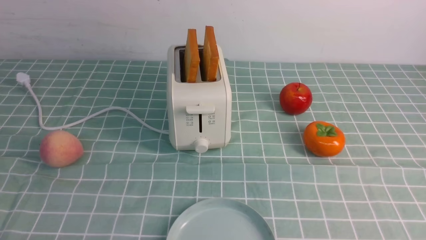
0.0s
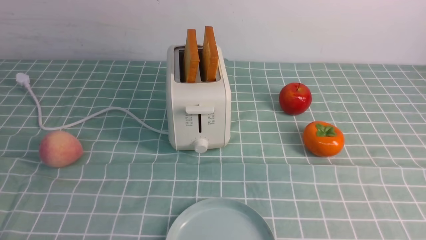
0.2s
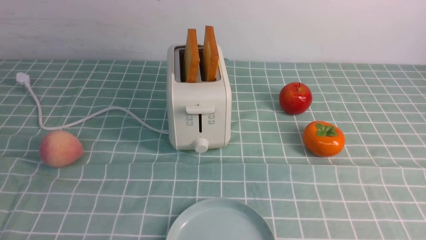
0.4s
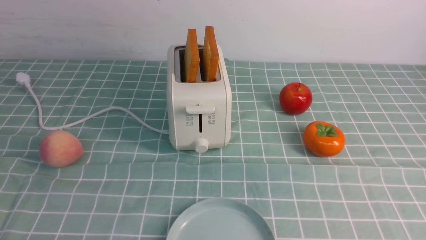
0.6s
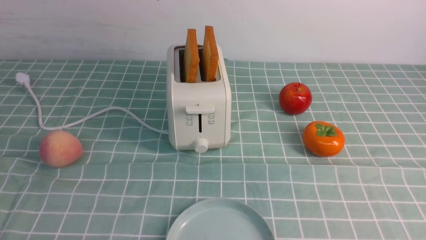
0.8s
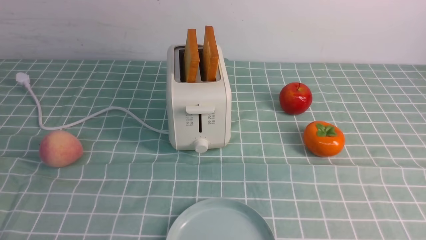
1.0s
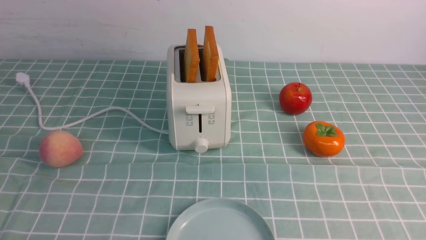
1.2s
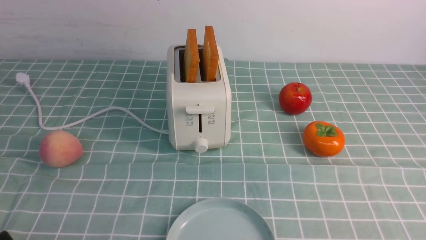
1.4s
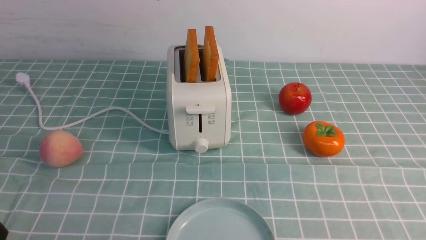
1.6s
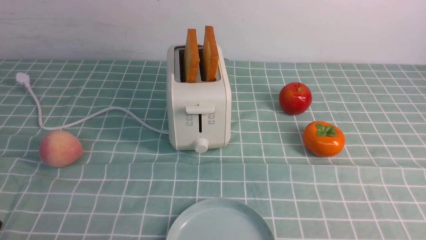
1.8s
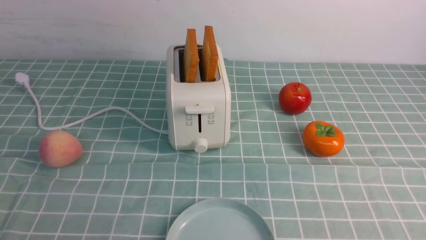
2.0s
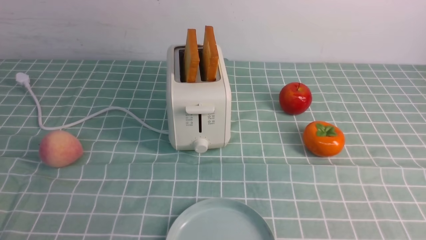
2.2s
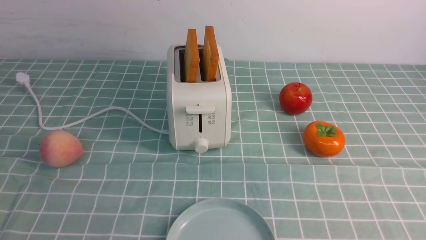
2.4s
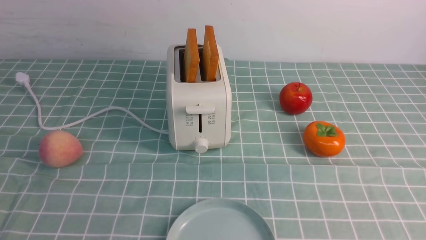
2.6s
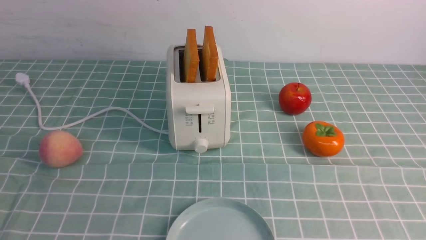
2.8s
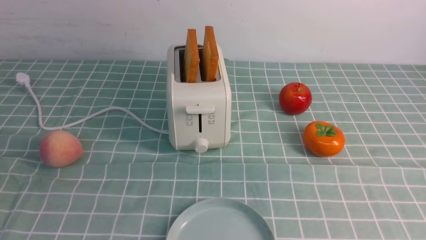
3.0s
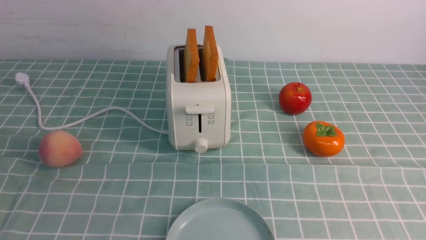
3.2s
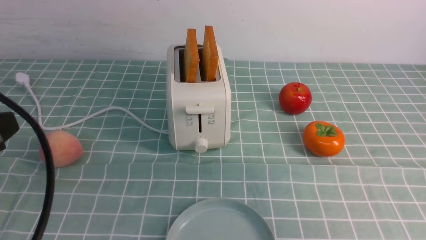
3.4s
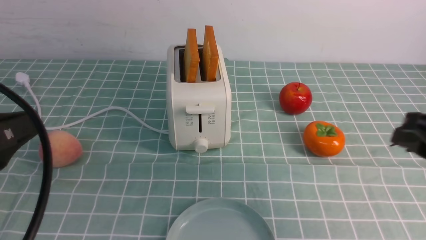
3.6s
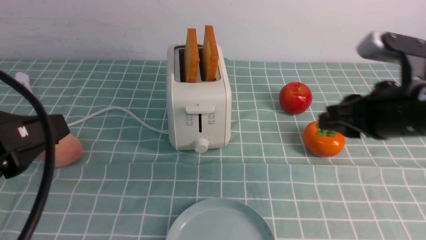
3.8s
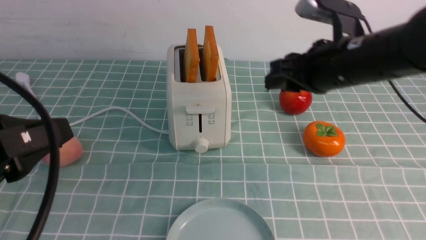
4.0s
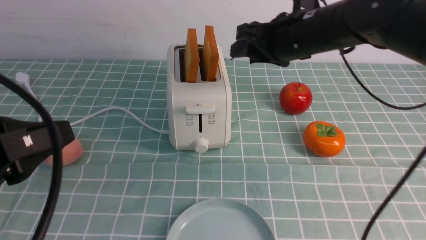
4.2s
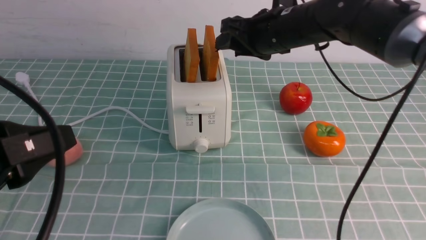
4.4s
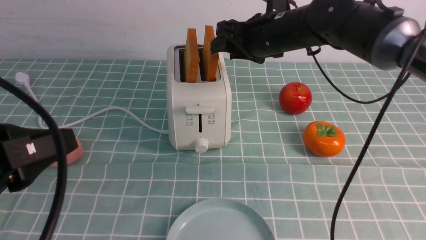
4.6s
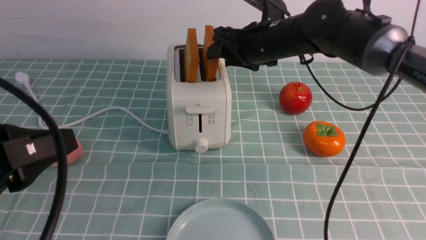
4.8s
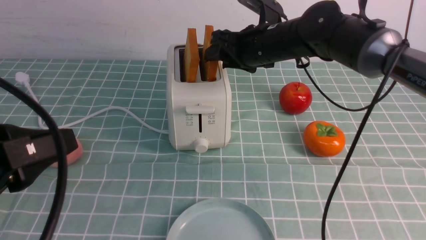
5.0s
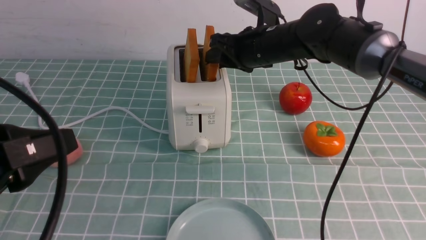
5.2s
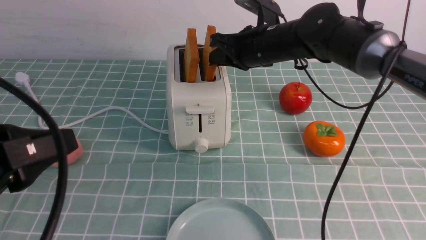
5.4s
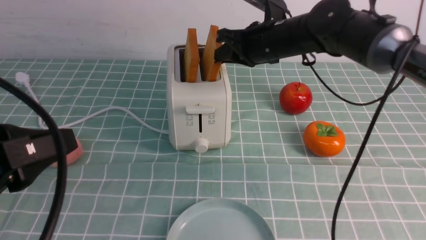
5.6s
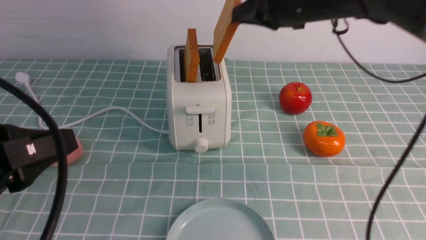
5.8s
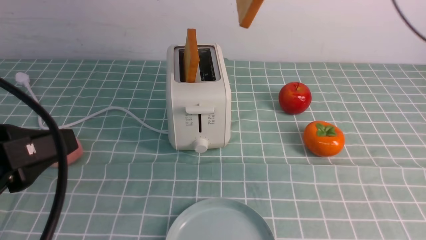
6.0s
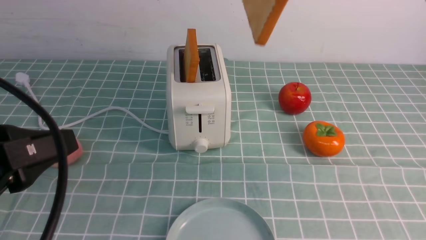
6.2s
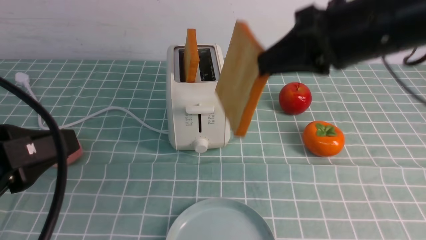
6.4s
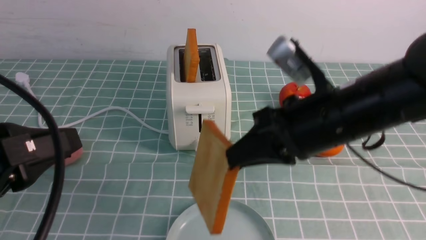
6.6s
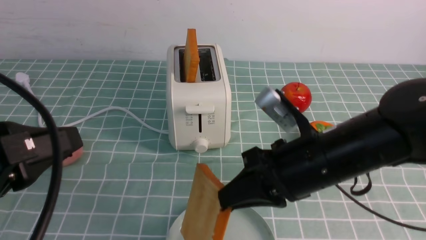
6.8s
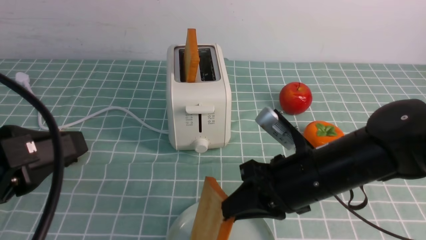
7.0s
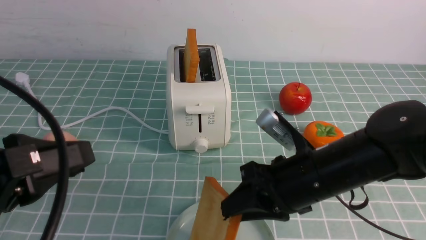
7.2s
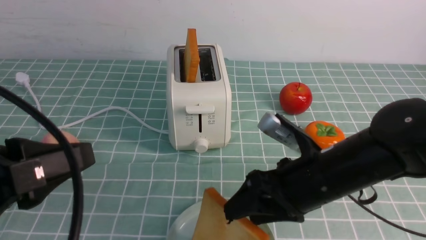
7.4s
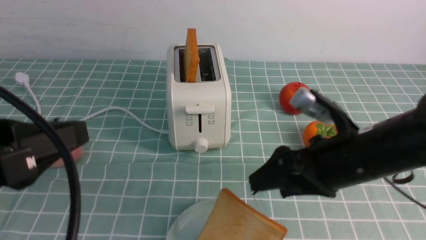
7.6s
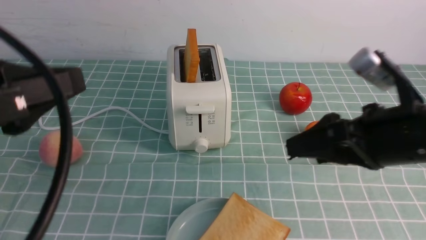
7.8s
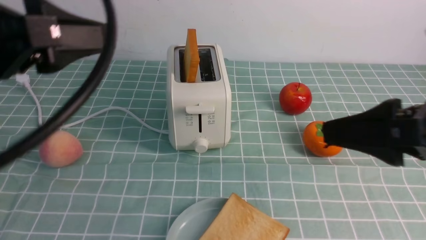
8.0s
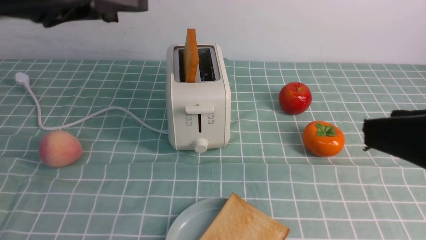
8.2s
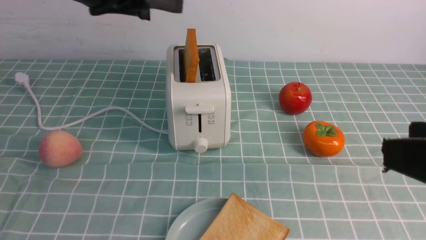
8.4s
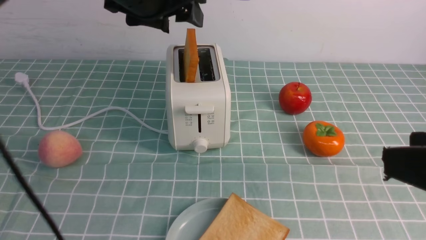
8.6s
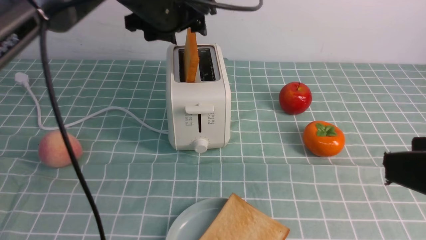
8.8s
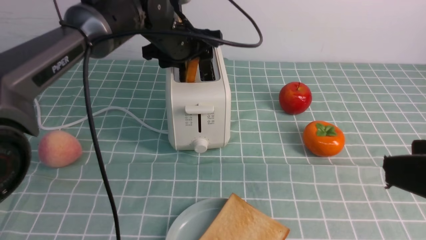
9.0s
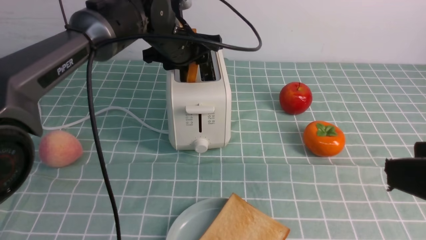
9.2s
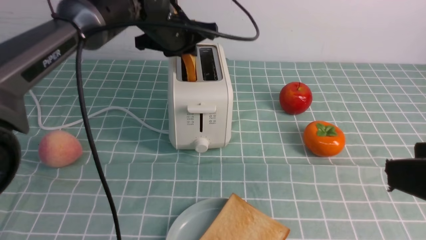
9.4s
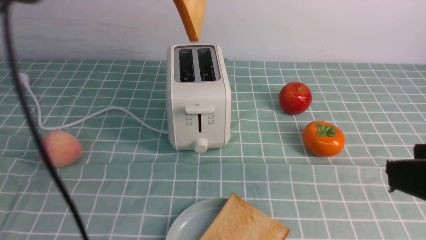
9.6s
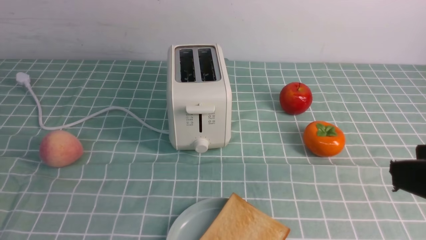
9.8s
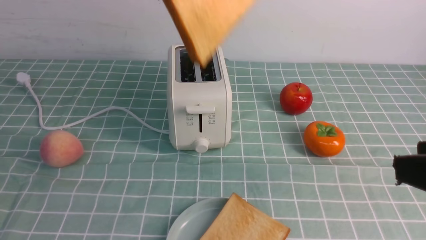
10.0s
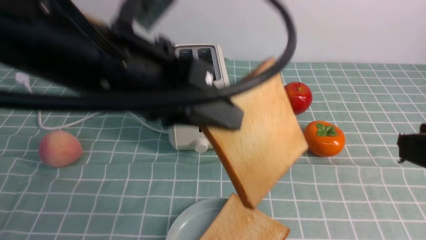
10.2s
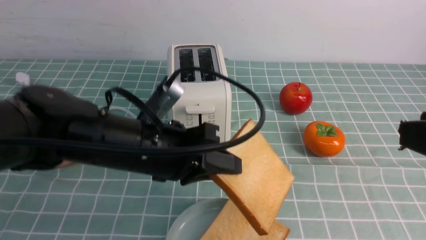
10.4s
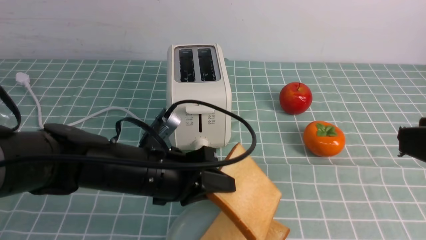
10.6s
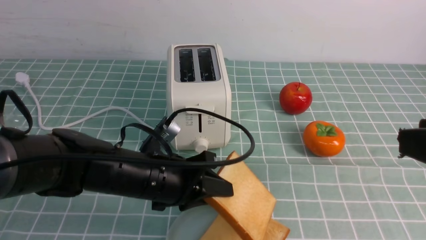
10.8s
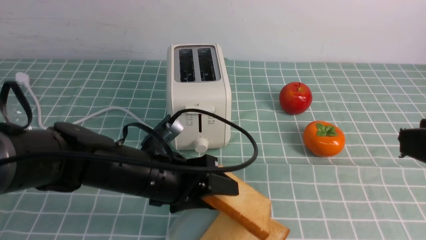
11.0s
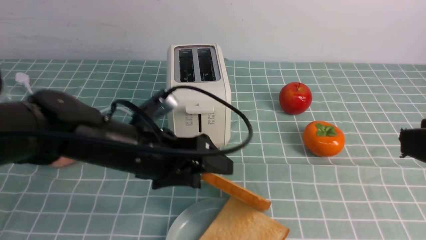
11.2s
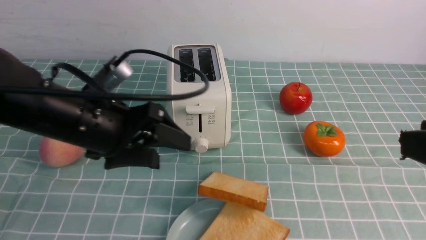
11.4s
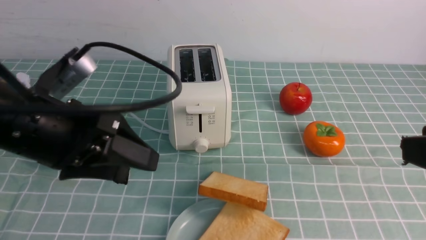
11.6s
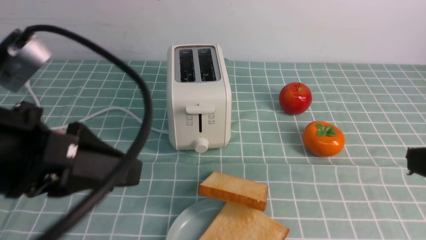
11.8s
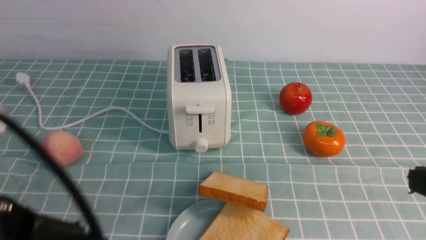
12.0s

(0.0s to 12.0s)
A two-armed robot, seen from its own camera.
Task of the whole recording: take toasted bread from bread machine on blue coffee table place on plate.
Step, 0.0s - 6.0s: use the right arm to take out a slice of bread.
Step, 6.4s - 7.4s: use the right arm to put a slice of bread into the plate.
Step, 7.8s - 9.8s: use the left arm to take out a slice of bread.
Step, 10.0s - 11.8s: use the left arm to put a slice of bread into the empty plate.
3.0s - 4.4s: The left gripper goes approximately 5 cm forward, while the right gripper moves forward and to the left, about 40 cm.
4.4s - 6.0s: The right gripper goes roughly 15 cm upward, to the right and backward, and closes.
6.0s - 7.6s: The right gripper heads downward and backward, covering roughly 20 cm, and opens up.
7.6s - 9.0s: The left gripper heads forward and to the right, covering approximately 35 cm; the right gripper travels backward, upward and to the right by approximately 20 cm.
9.0s - 10.4s: The right gripper closes. Meanwhile the left gripper shifts roughly 20 cm backward, reaches some 20 cm upward, then returns, and closes.
10.4s - 12.0s: The left gripper travels backward, to the left and upward by some 20 cm, and opens its fingers. Meanwhile the right gripper heads downward, covering approximately 5 cm, and closes its fingers.

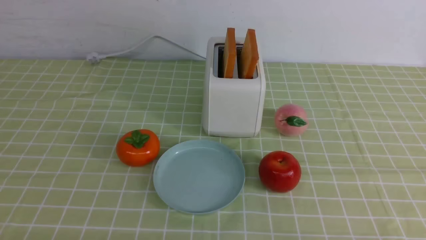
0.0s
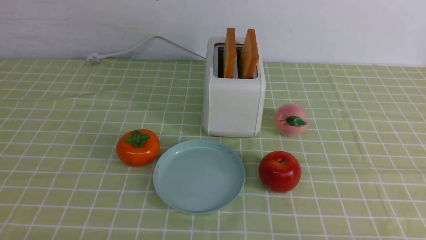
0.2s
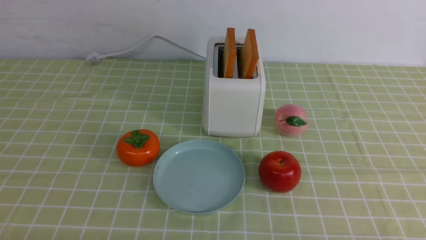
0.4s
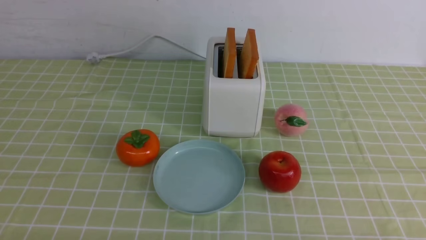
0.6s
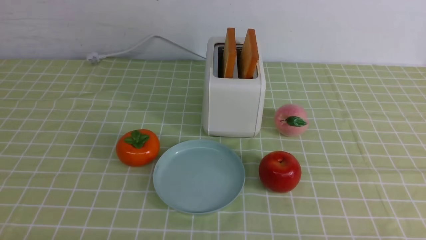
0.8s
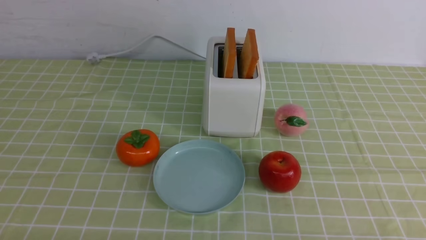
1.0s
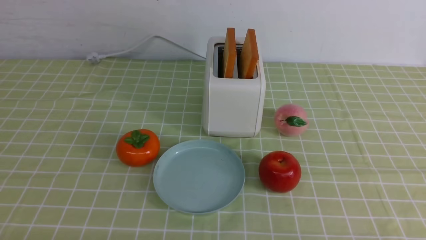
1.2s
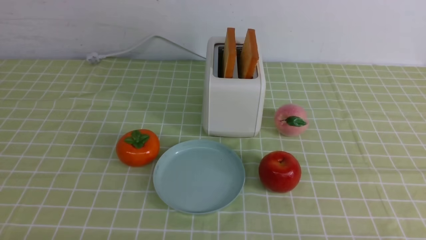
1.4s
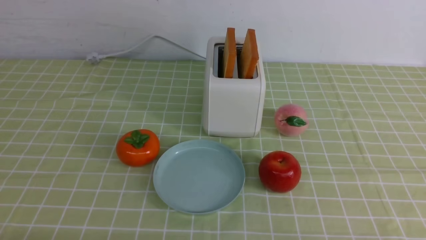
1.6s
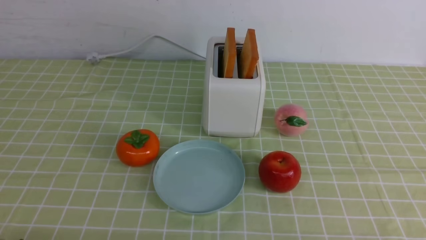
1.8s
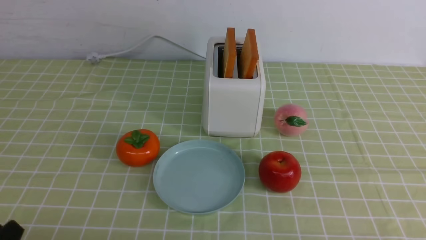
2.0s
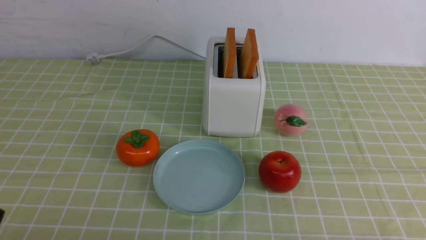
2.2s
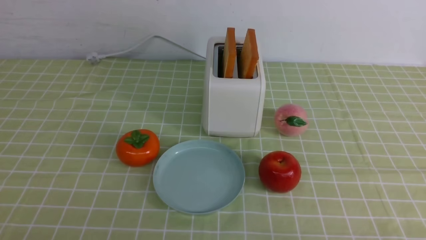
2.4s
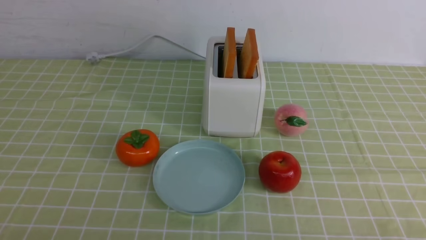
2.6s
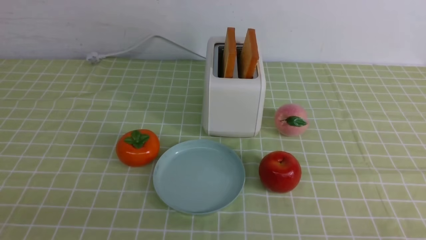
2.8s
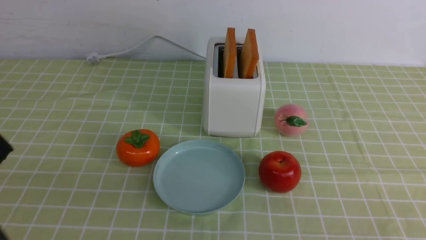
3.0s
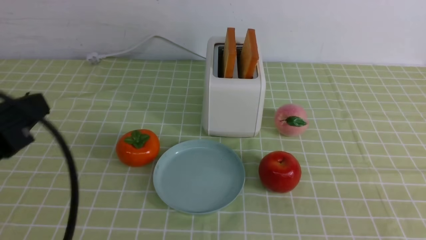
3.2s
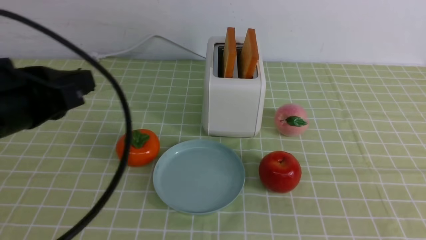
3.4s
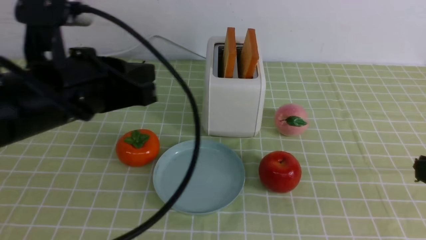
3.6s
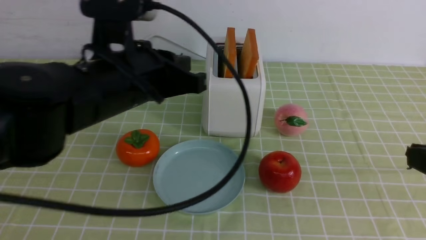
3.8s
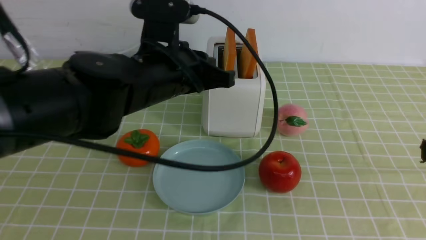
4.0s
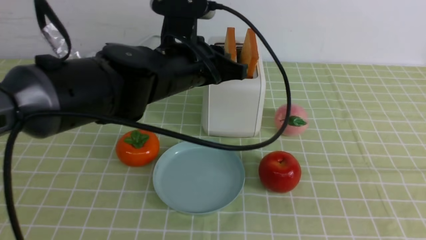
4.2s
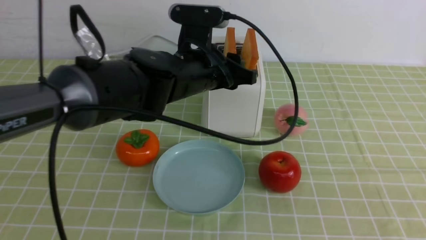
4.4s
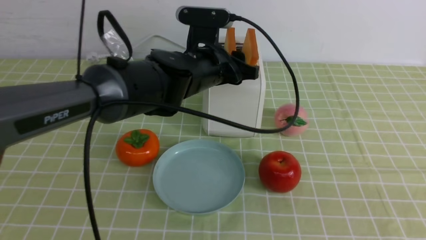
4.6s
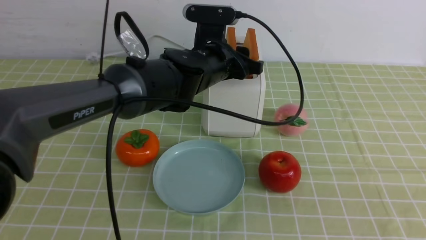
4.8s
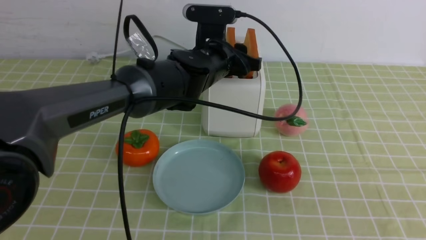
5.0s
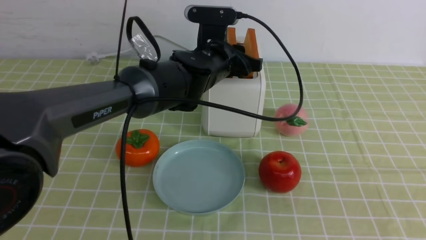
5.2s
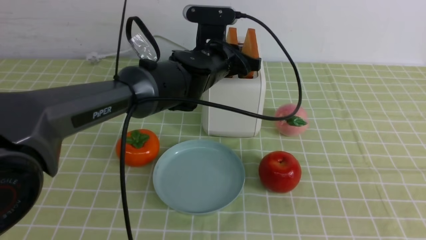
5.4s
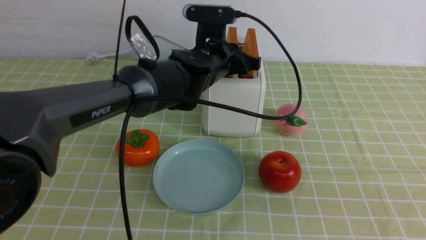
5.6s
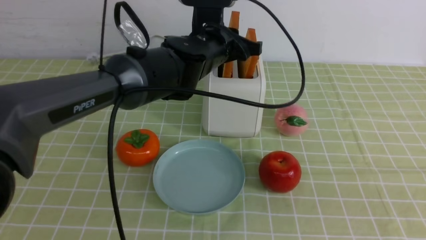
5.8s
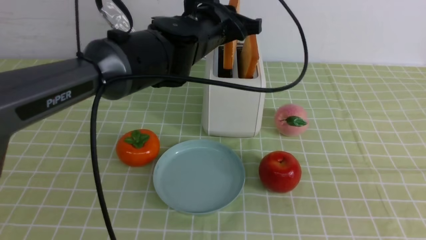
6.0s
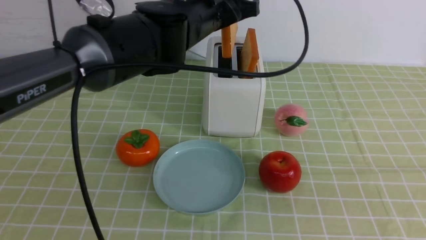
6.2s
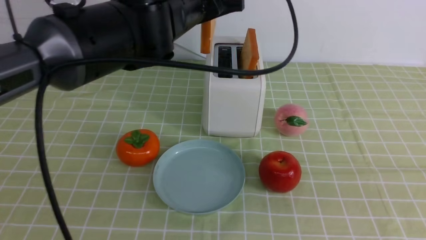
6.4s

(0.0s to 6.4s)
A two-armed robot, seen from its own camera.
Task of the whole recording: take toasted bread from bread machine on green coffee tablecloth place on plate.
1.6s - 3.2s: The left gripper travels upward and forward by some 20 cm, and closes up.
3.2s - 4.8s: The left gripper travels forward and to the right by roughly 35 cm, and opens its fingers.
4.8s - 6.4s: The left gripper travels upward and backward by about 10 cm, and closes up.
